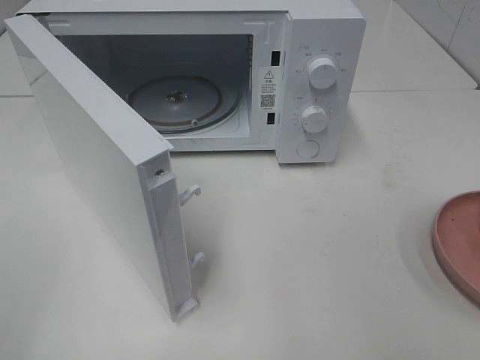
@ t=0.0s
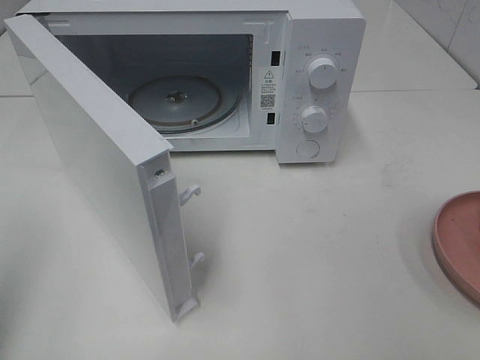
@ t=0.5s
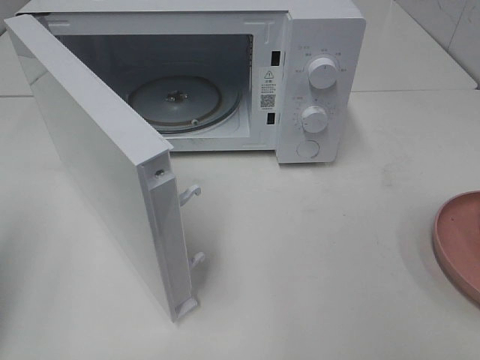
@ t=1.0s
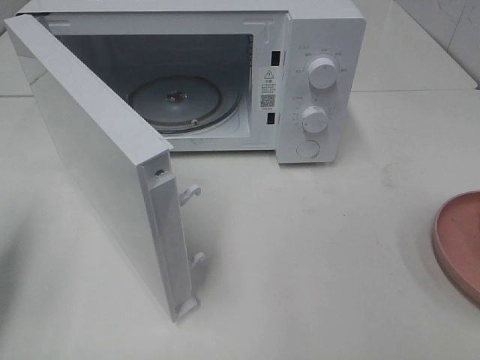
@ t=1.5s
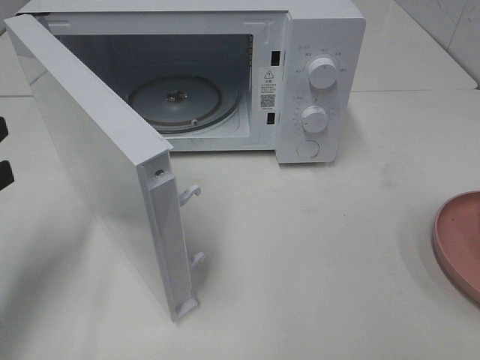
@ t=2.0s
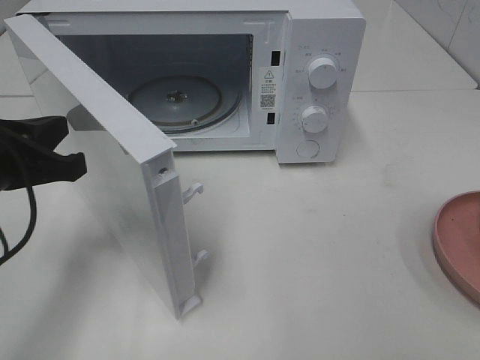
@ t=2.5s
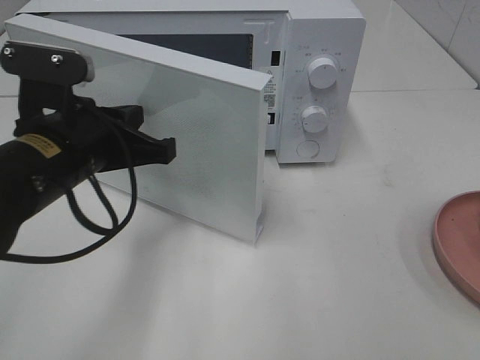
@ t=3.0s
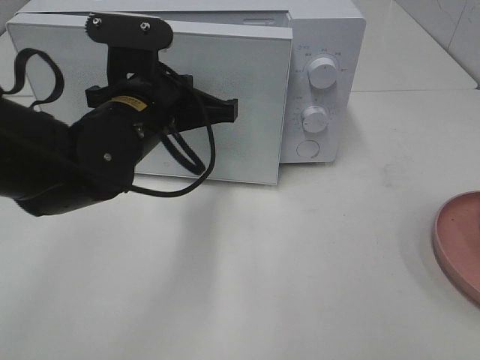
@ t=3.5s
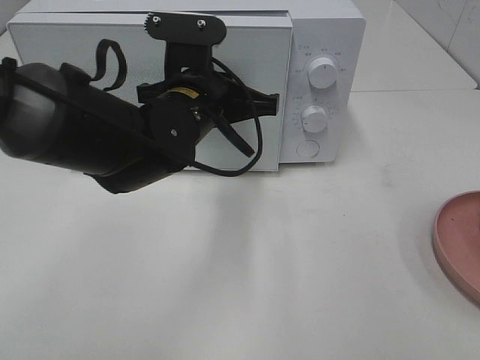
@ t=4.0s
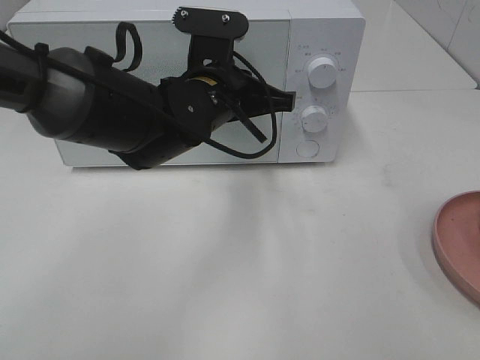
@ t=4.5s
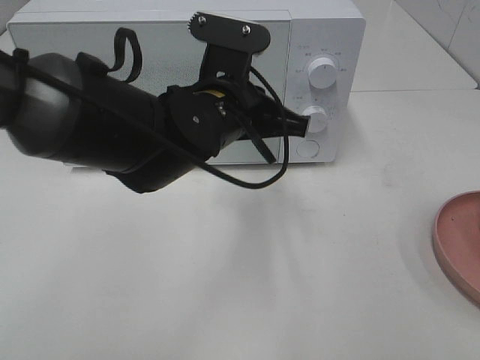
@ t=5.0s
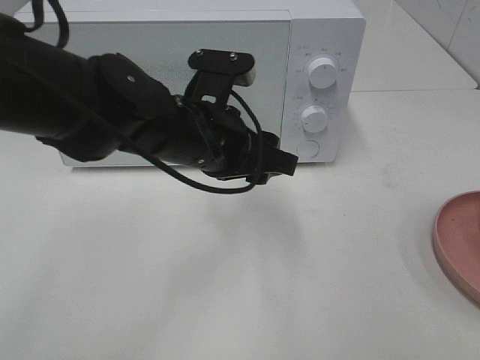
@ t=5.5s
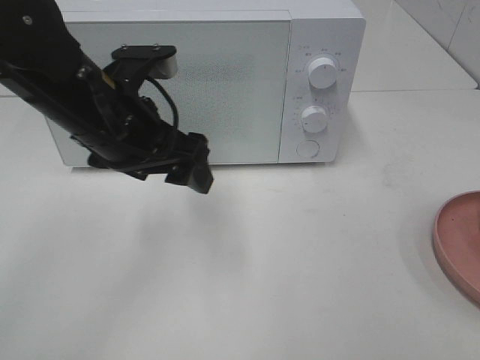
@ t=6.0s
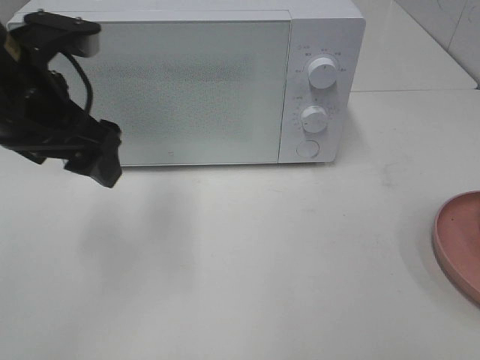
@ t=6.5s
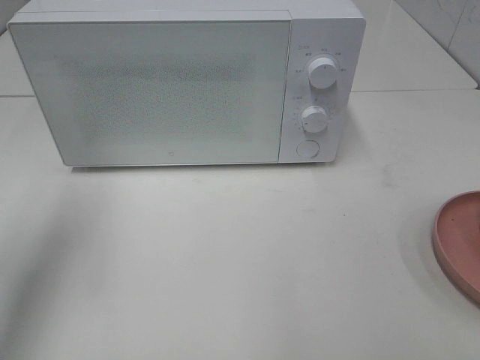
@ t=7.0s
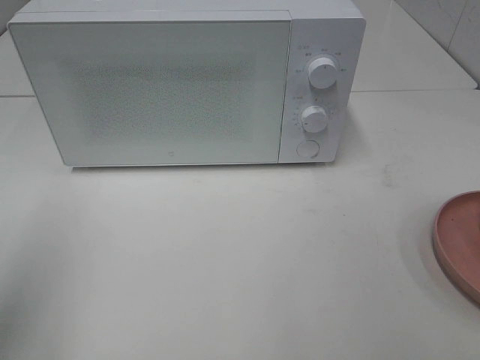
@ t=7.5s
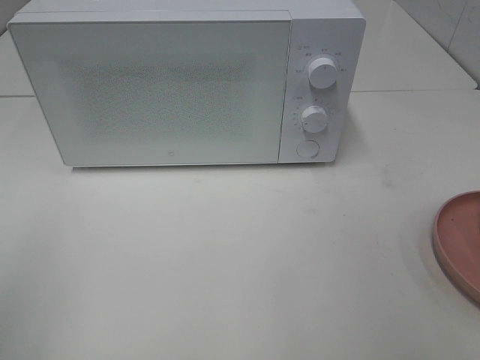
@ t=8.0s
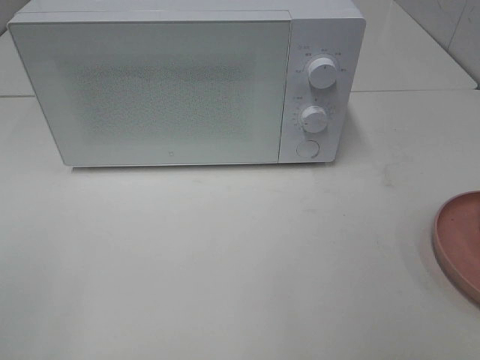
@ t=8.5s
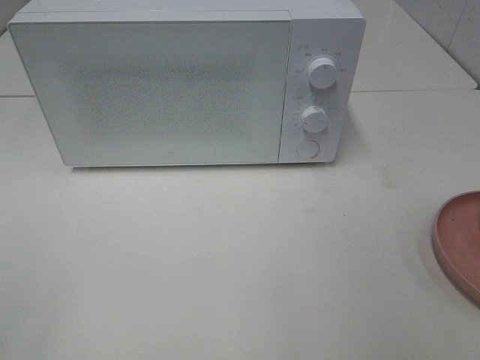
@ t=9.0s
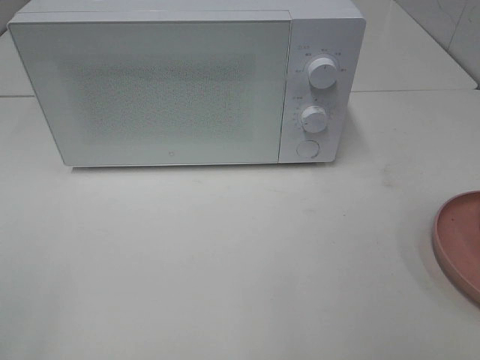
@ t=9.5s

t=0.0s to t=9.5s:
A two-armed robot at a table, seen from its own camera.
Task of the whole recording: Heat the burger.
Step, t=0.0s to t=4.5s: Left hand: close the microwave door.
t=0.0s to t=2.0s: The left gripper heads forward and downward, covering about 20 cm, and closes up.
t=2.0s to t=4.0s: The left gripper shifts approximately 25 cm to the right and forward.
t=4.0s to t=5.5s: The left gripper opens its fingers.
t=5.5s to t=7.5s: The left gripper goes roughly 30 cm to the left and backward.
t=7.5s to t=9.5s: The left gripper is displaced backward by approximately 15 cm.

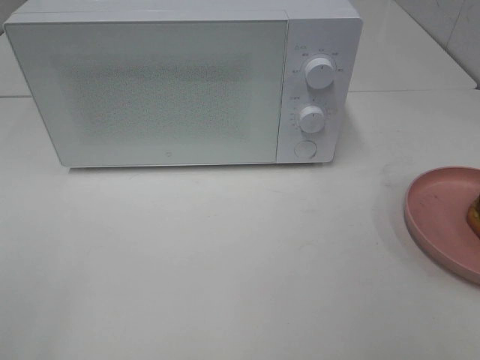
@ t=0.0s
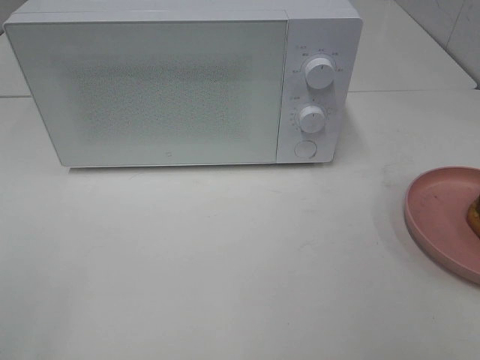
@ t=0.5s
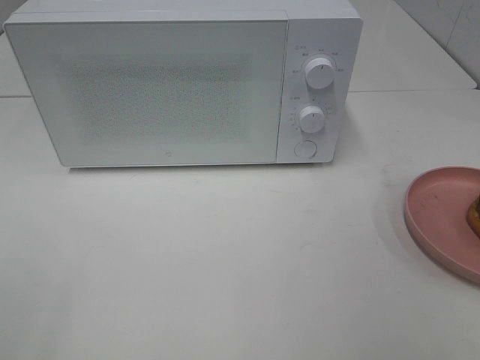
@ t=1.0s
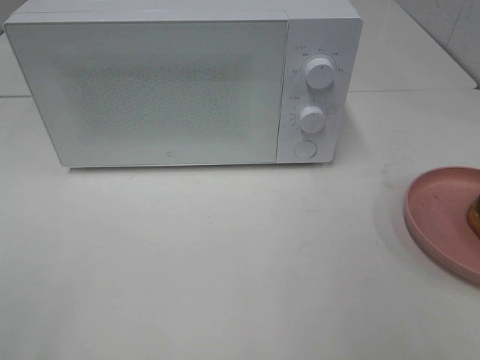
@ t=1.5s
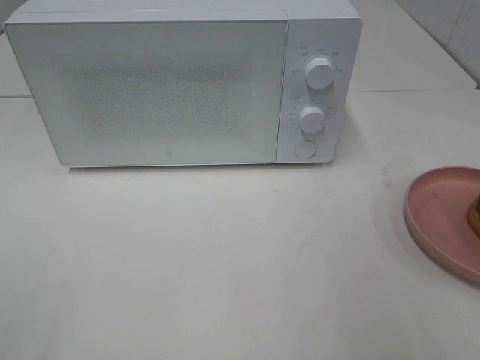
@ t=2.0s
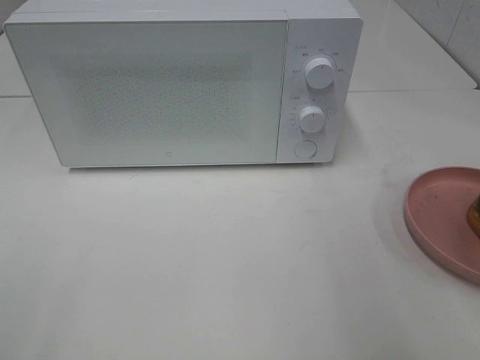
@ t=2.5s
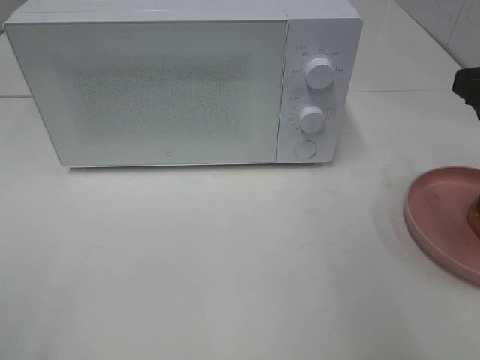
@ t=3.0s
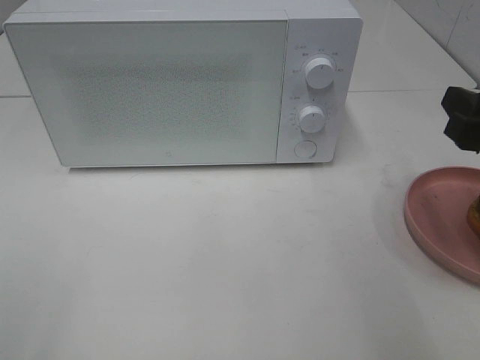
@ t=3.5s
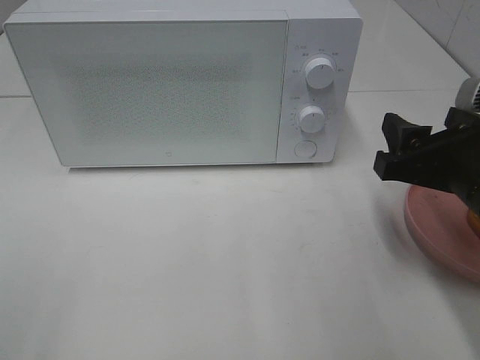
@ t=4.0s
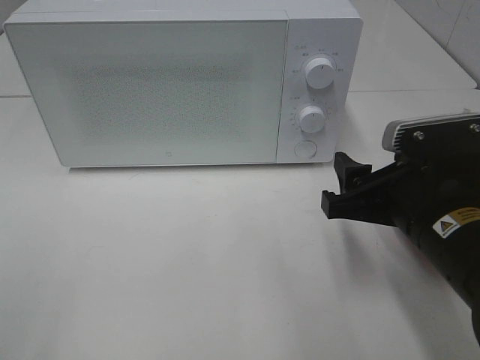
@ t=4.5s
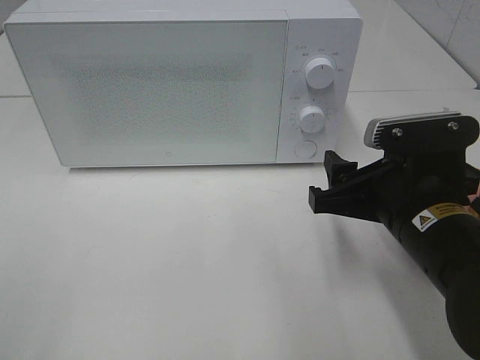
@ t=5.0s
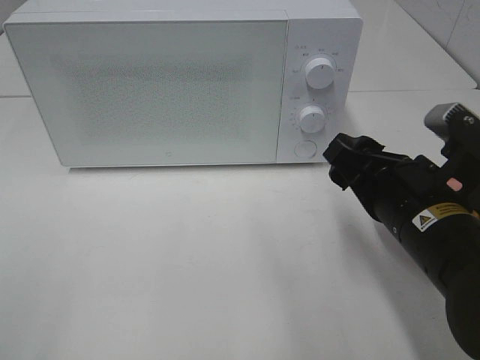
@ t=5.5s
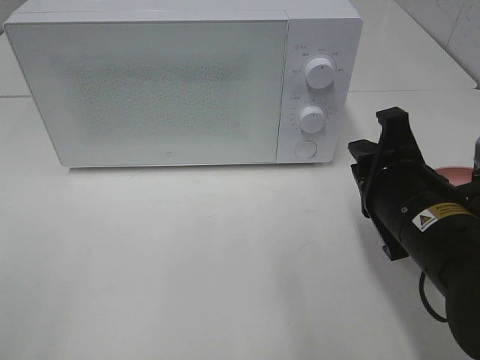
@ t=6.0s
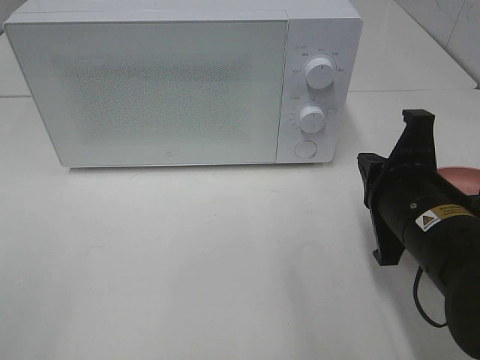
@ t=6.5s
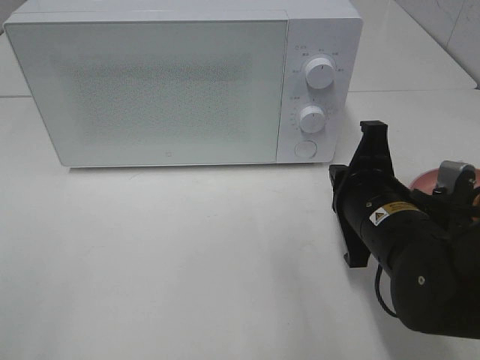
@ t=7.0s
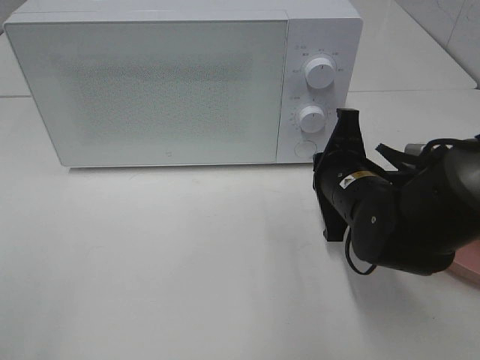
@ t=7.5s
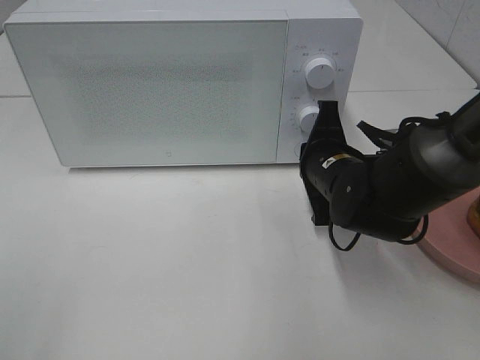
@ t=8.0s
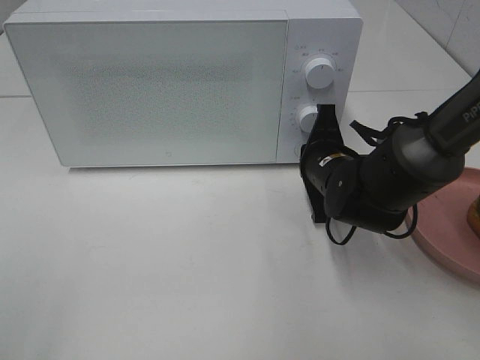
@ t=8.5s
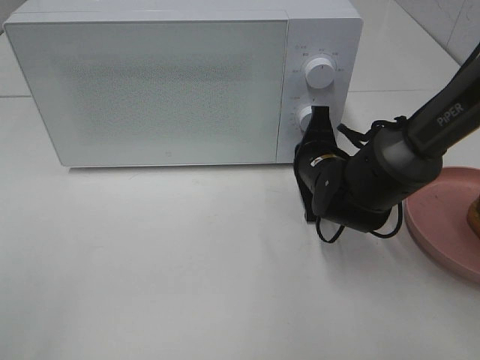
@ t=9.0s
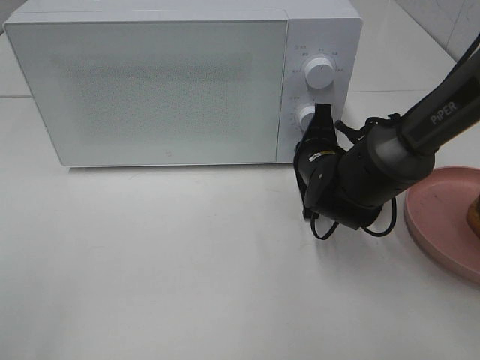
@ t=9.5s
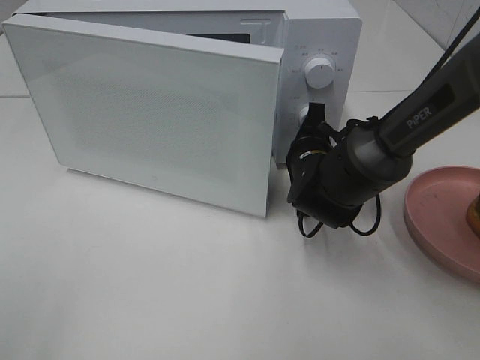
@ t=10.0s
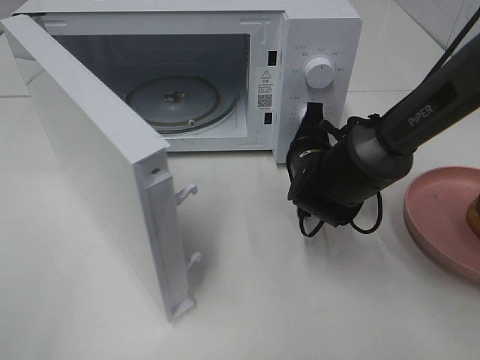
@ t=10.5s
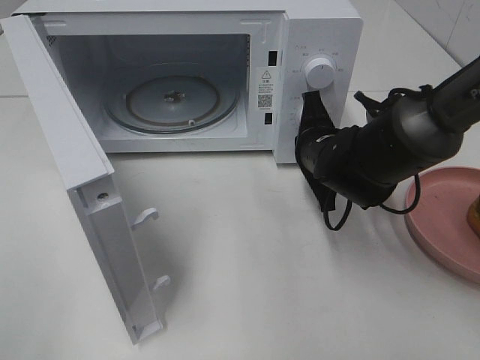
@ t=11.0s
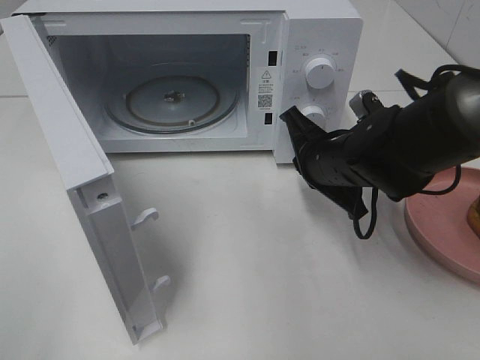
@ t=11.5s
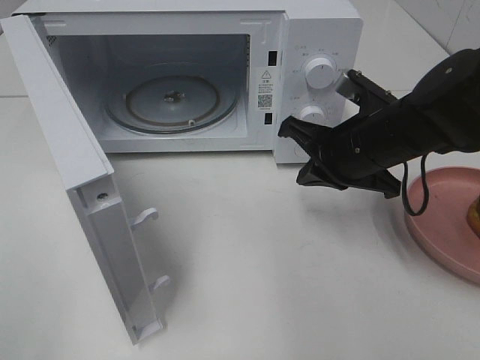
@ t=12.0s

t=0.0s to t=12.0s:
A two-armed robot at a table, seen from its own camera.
Task of the whole recording: Heat the burger.
Step, t=0.0s to t=11.0s: Right hand: press the switch.
t=2.0s to t=4.0s: The right gripper travels downward, forward and to the left by some 15 cm.
t=4.0s to t=6.0s: The right gripper moves to the left, approximately 5 cm, and closes its fingers.
t=6.0s to t=8.0s: The right gripper shifts some 15 cm forward and downward.
t=8.0s to t=10.0s: The right gripper changes place by some 5 cm.
t=10.0s to t=12.0s: The right gripper heads upward and backward, covering some 10 cm.

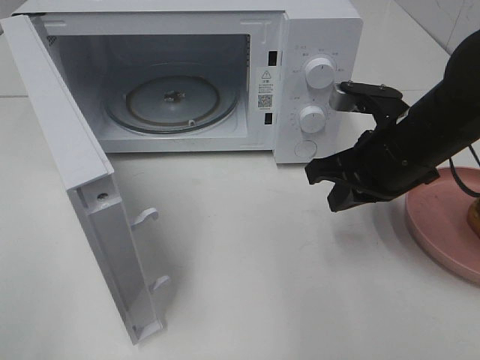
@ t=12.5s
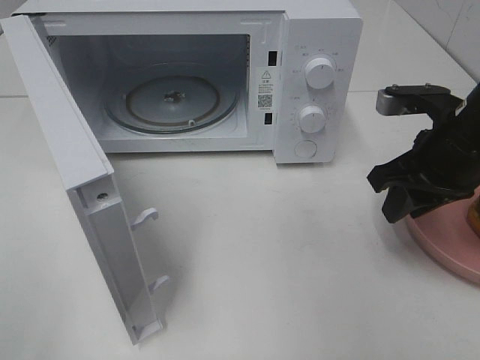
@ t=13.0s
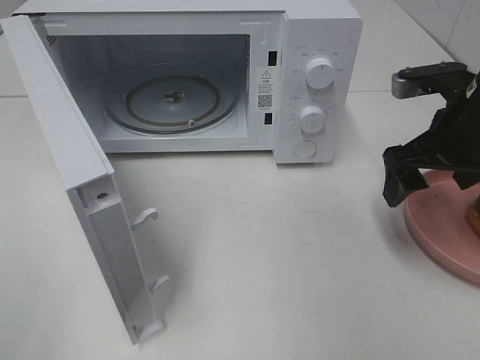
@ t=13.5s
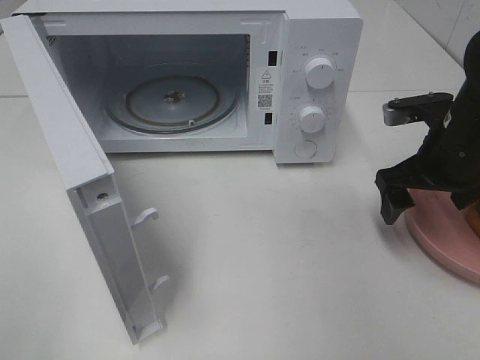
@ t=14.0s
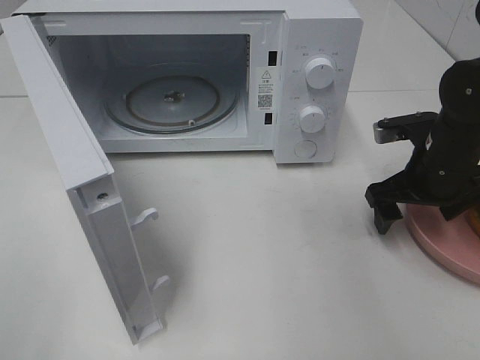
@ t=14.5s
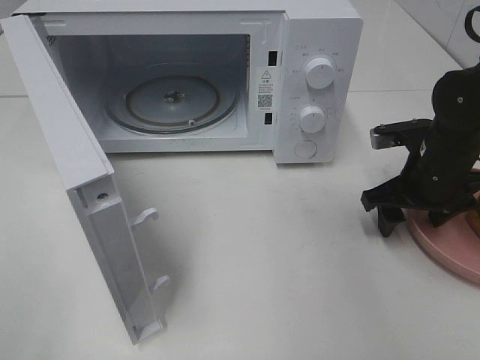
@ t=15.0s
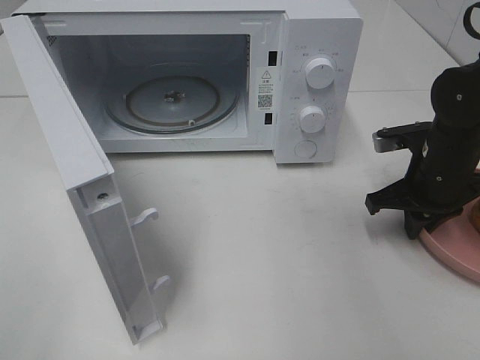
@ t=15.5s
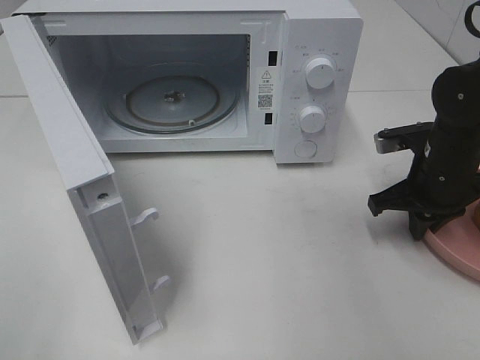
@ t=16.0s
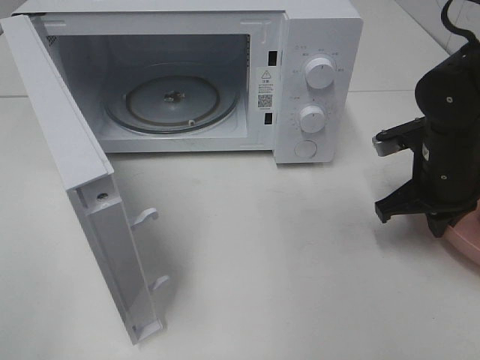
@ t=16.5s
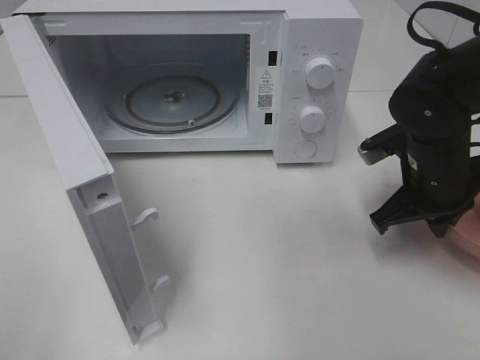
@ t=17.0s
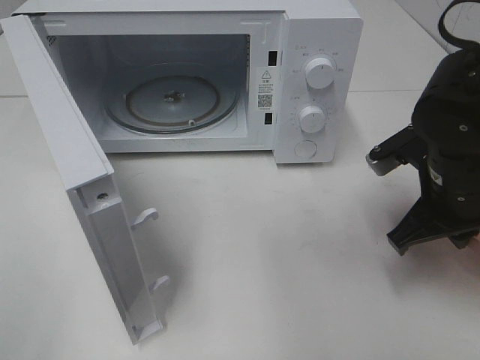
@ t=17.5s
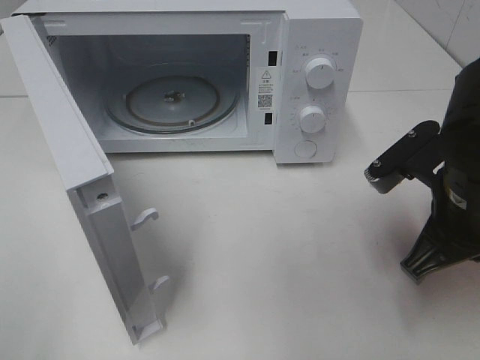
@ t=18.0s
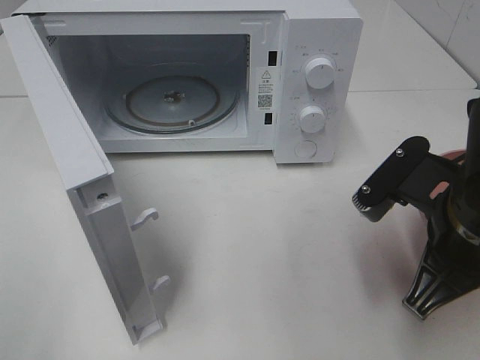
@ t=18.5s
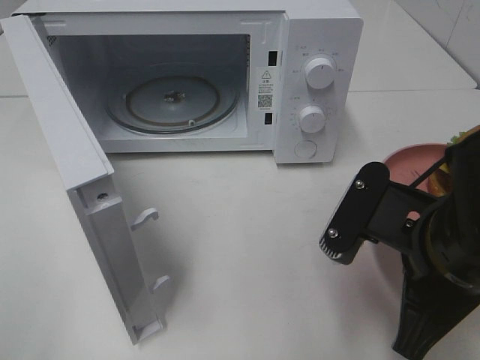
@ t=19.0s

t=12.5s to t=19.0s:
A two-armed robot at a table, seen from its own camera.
Task of the whole recording: Heat the burger.
Step, t=12.5s to t=16.0s: Right hand: grab the plate with the hamburger.
t=12.5s to t=14.5s: The right gripper goes approximately 10 cm to the right and downward, and opens.
t=14.5s to t=17.0s: The right gripper closes its fingers.
t=17.0s to t=19.0s: The right gripper travels backward and to the left by some 15 cm.
